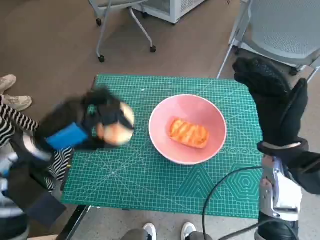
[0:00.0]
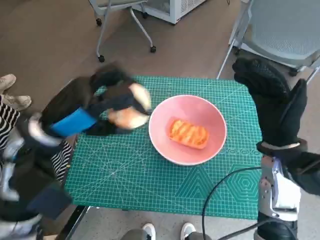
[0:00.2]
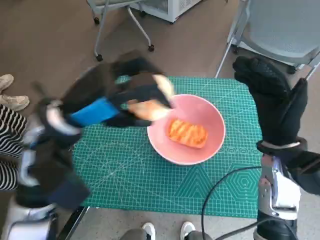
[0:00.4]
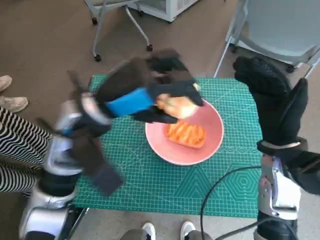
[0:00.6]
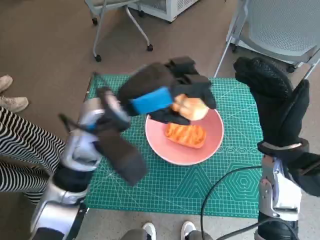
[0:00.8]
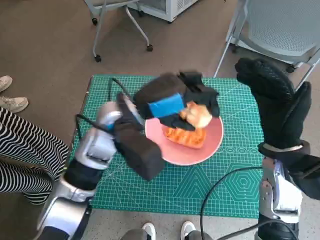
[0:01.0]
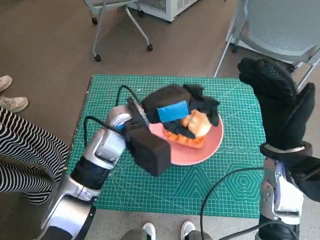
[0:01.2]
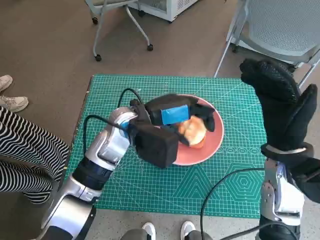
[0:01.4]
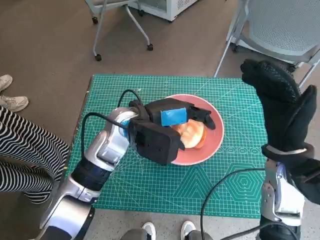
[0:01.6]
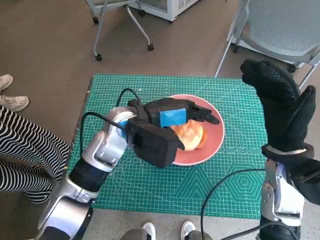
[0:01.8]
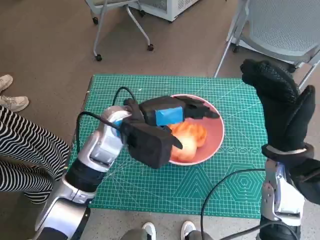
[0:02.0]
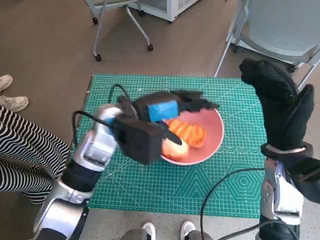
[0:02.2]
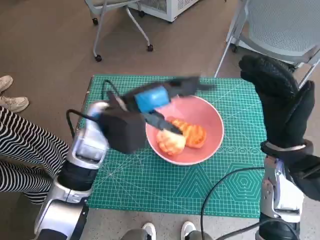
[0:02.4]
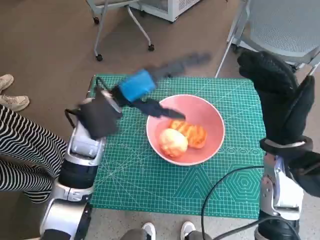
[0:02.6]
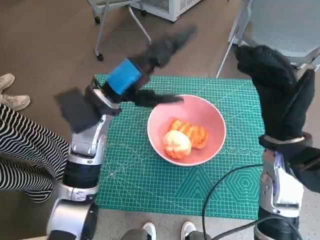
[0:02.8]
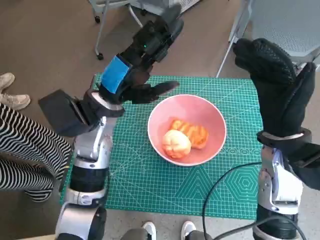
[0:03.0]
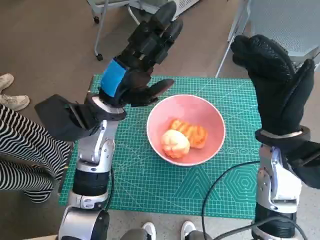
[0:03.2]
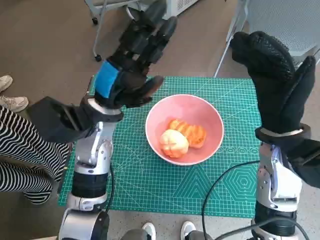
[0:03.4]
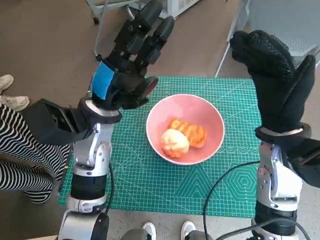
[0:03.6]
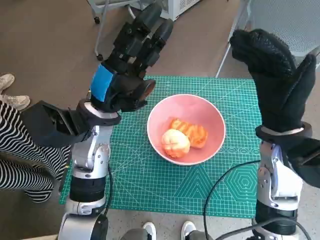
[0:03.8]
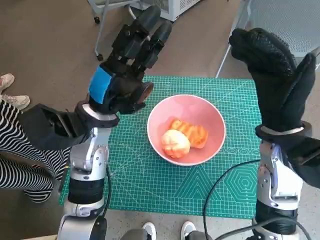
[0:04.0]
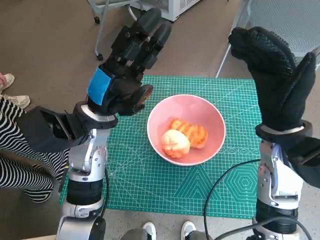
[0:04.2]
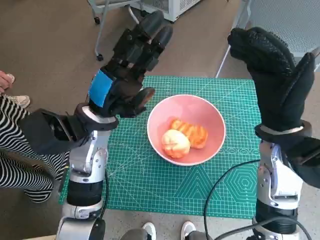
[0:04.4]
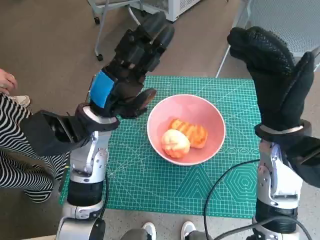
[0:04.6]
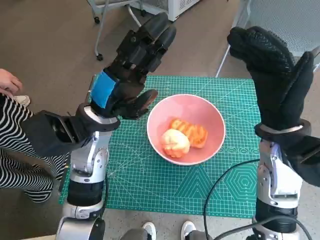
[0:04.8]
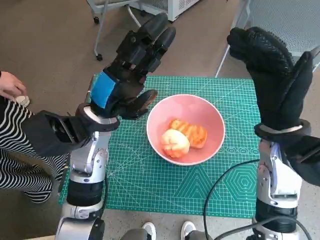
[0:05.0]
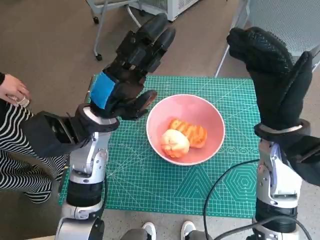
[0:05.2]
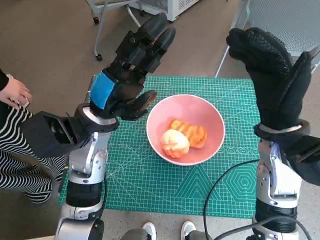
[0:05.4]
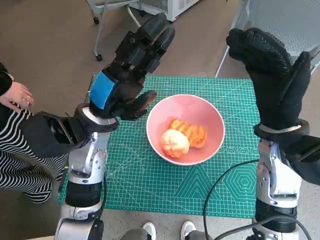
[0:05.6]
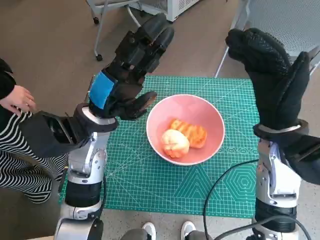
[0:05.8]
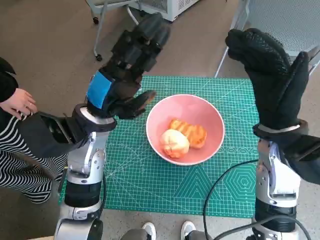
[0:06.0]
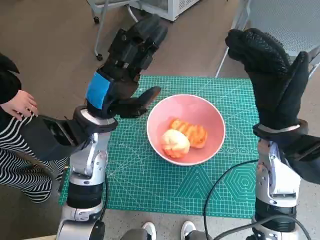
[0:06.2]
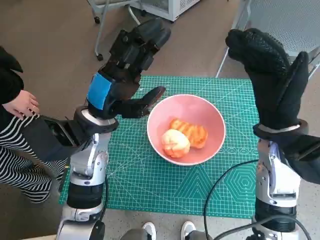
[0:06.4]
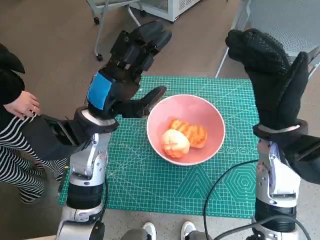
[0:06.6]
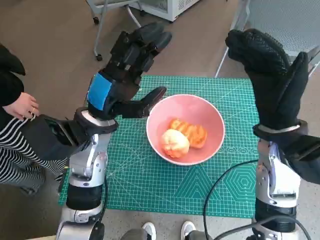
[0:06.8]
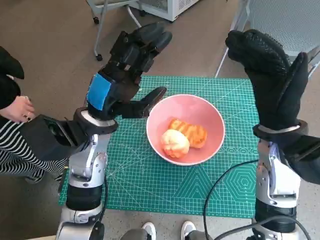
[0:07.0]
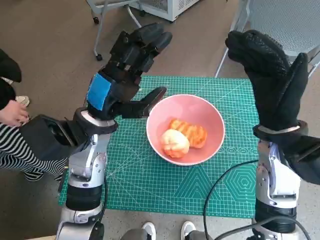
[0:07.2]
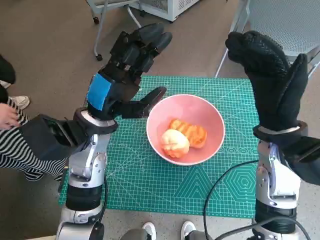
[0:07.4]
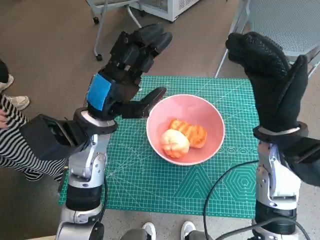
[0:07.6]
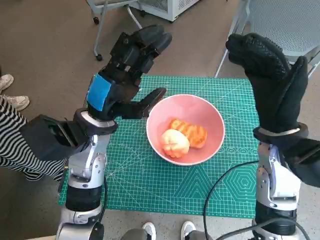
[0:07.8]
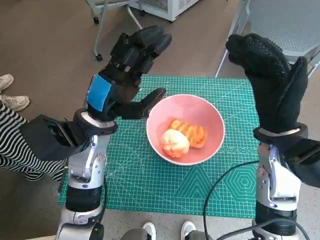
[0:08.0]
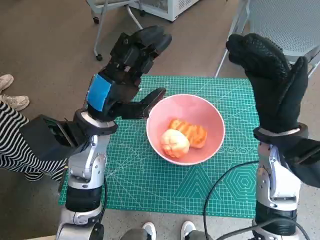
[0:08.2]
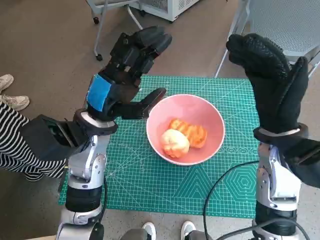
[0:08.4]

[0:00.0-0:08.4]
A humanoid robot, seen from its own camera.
Task of the whole recording: Push the bowl into the center of the table and put the bread into the bowl.
Step, 0:00.0 to 0:02.0: Place the round bread in pink bowl with left hand.
0:00.0 to 0:01.4: The left hand moves to the right and forward, roughly 15 cm.
0:01.4 to 0:02.8: The left hand is displaced to the left by some 5 cm.
0:04.2 to 0:05.6: The two hands keep their place.
0:05.6 to 0:07.0: The hands move only a little.
0:07.0 to 0:08.4: Both hands stay put.

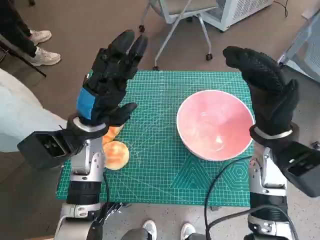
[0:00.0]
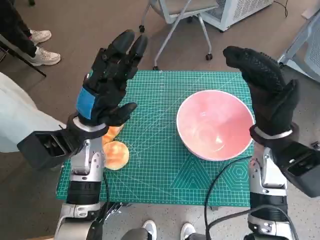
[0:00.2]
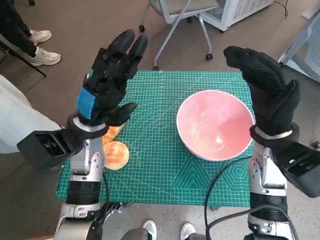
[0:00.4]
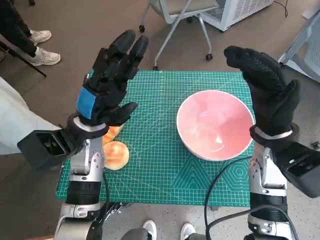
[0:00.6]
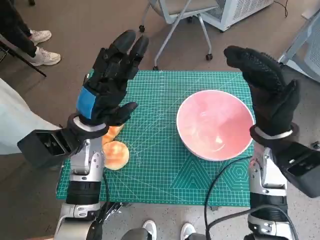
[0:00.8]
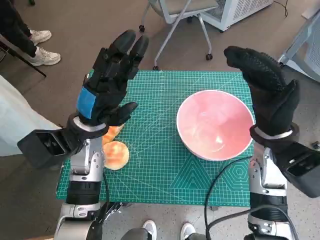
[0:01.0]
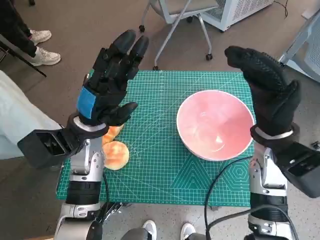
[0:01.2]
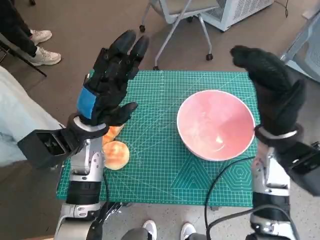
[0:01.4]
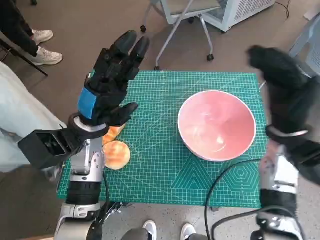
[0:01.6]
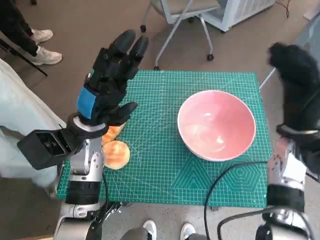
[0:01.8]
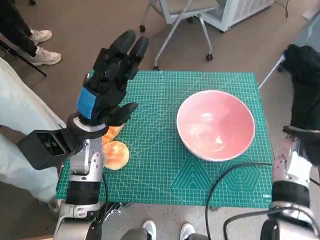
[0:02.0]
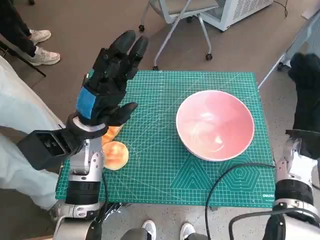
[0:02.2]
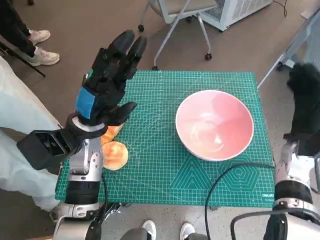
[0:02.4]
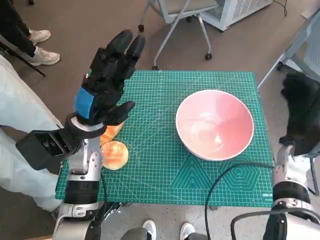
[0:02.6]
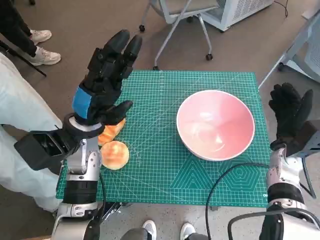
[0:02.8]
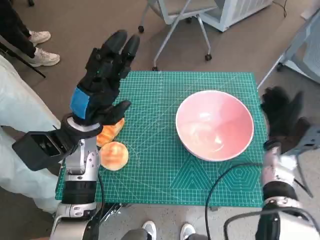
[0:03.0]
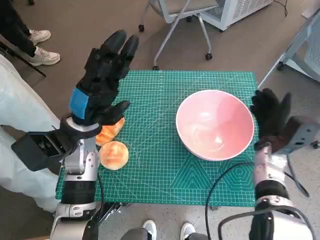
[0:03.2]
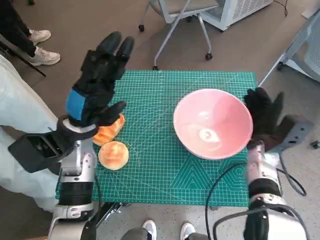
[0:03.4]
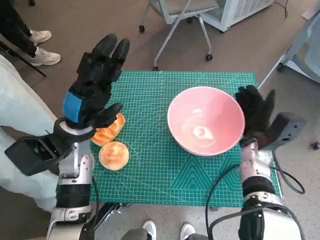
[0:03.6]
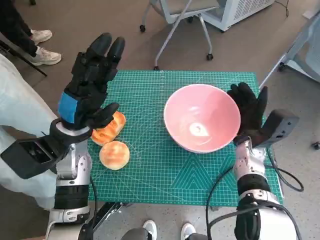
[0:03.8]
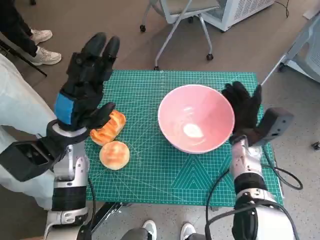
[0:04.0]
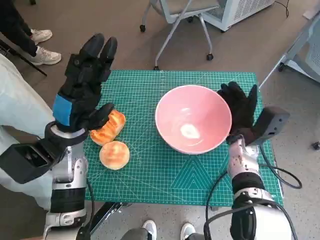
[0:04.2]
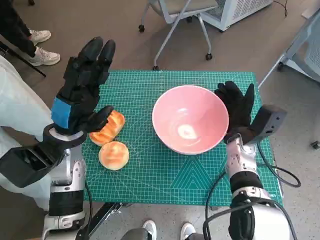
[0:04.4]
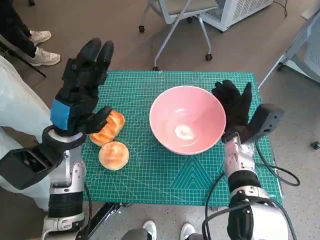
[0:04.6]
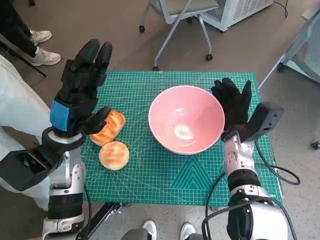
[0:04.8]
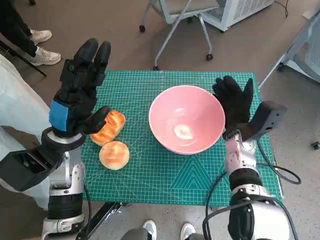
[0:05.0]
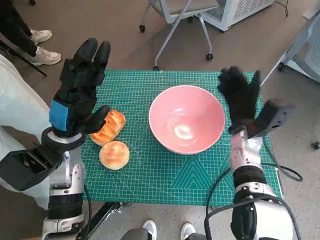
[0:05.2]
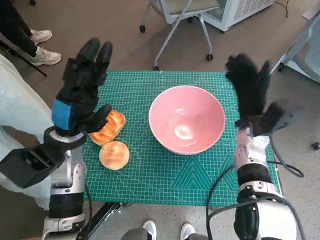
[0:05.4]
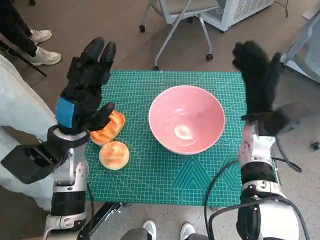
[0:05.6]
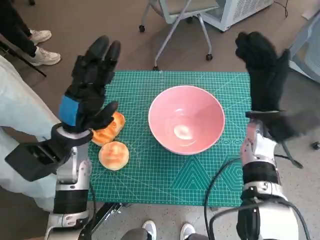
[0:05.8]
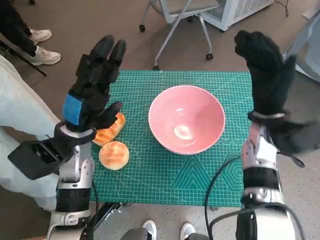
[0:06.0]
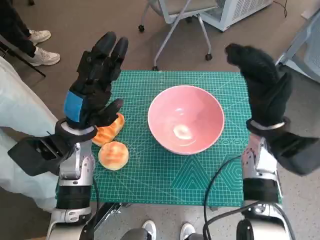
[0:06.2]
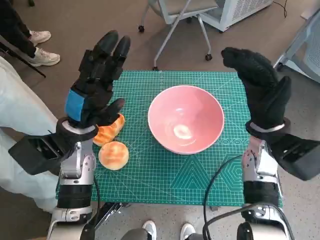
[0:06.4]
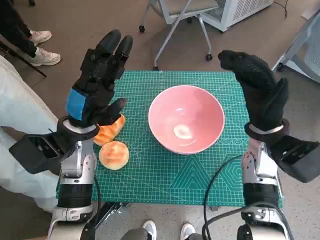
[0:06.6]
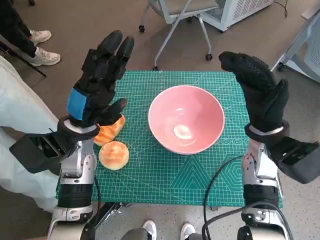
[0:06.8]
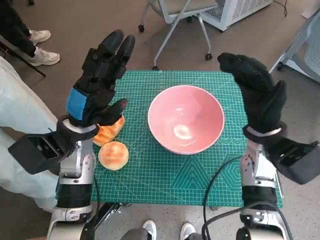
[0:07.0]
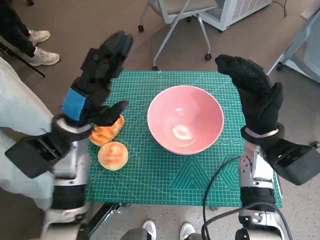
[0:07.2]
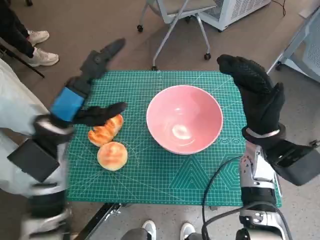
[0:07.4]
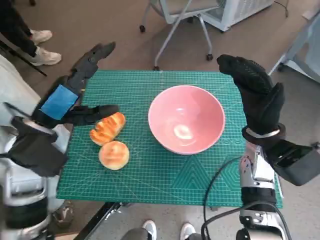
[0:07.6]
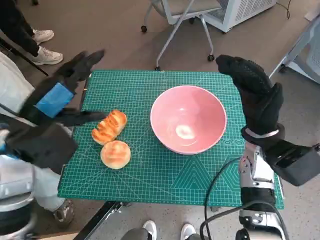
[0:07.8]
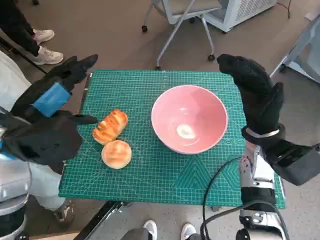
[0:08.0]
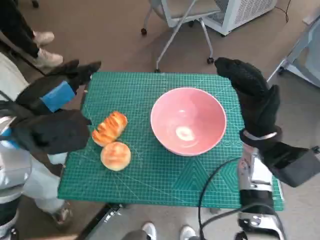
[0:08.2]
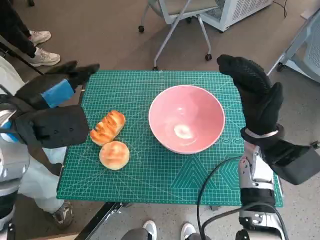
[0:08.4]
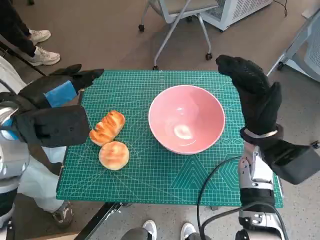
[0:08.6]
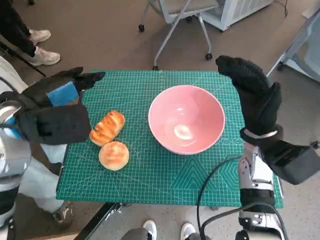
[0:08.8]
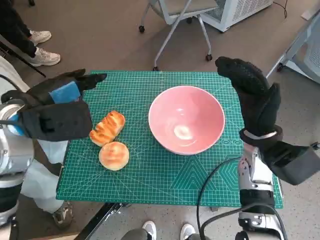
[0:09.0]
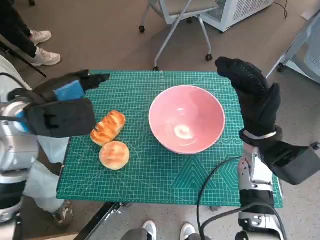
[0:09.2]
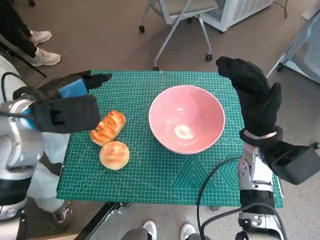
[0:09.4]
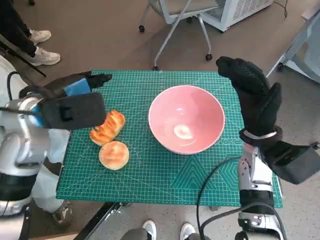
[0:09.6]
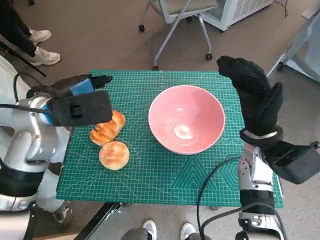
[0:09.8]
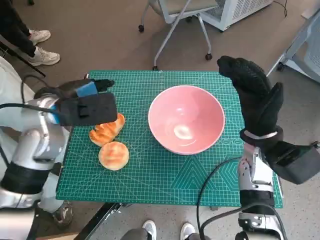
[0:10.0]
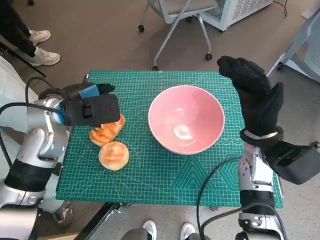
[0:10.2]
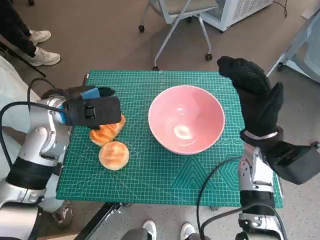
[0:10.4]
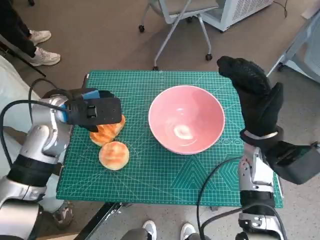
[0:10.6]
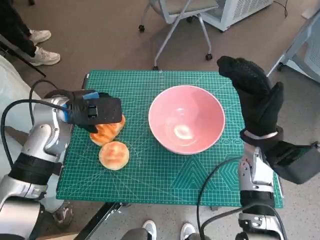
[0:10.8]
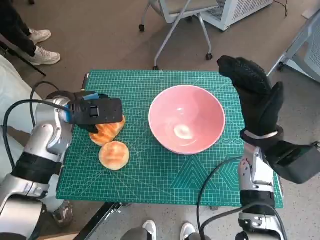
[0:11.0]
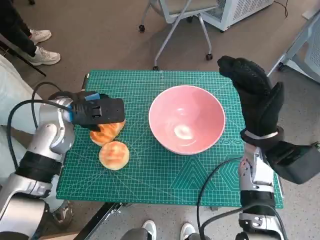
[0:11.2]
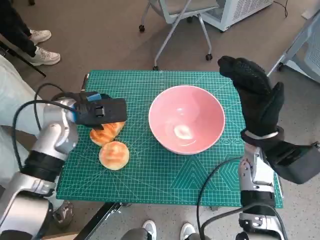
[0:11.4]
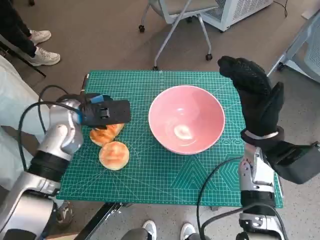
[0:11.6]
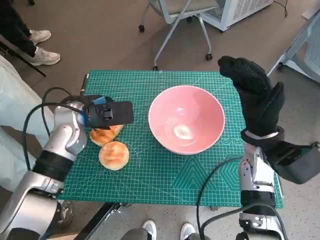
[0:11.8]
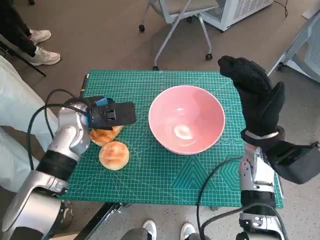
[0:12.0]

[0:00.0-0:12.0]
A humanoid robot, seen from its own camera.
Task of the whole recording: Push the bowl into the center of the table and put the bread into the bowl.
Step, 0:00.0 to 0:05.6: Move the pink bowl to the center of table with right hand.
0:01.6 to 0:03.0: The right hand travels downward by roughly 10 cm.
0:03.0 to 0:04.4: The right hand heads to the left, covering about 10 cm.
0:04.4 to 0:06.0: The right hand goes some 10 cm upward.
0:06.0 to 0:07.6: The left hand moves upward, roughly 5 cm.
0:09.0 to 0:10.4: The left hand shifts by approximately 5 cm.
0:10.4 to 0:12.0: The left hand changes place by about 5 cm.

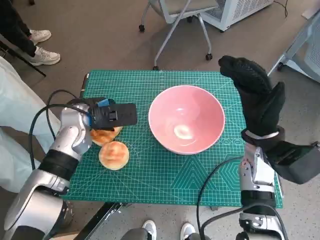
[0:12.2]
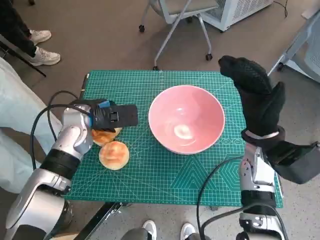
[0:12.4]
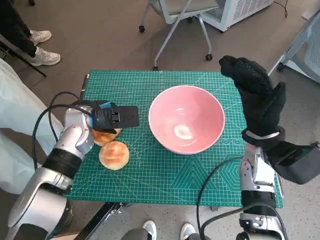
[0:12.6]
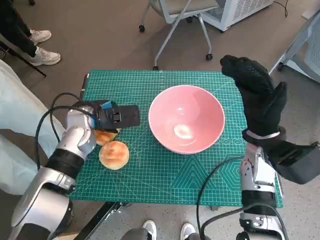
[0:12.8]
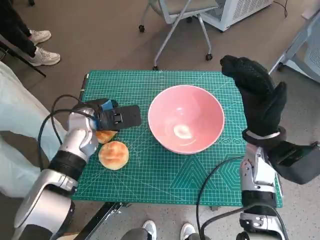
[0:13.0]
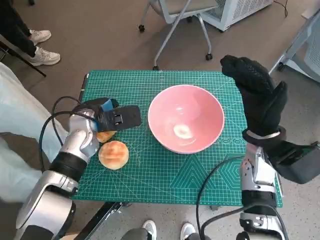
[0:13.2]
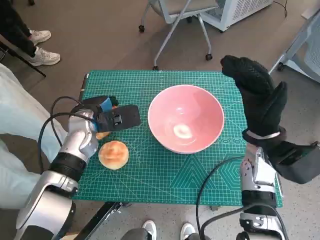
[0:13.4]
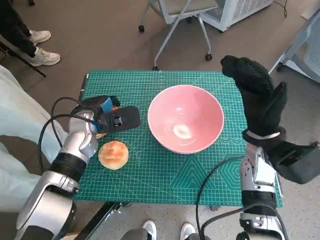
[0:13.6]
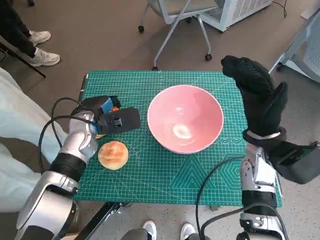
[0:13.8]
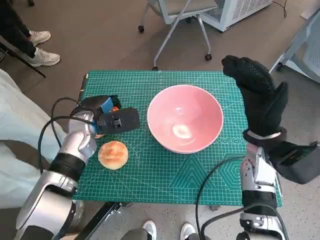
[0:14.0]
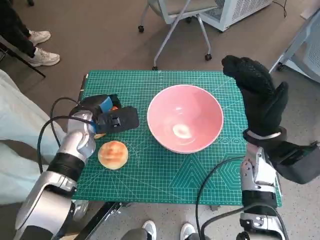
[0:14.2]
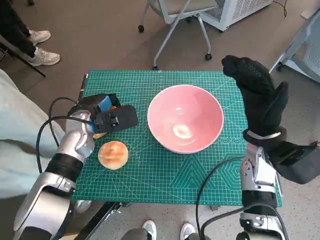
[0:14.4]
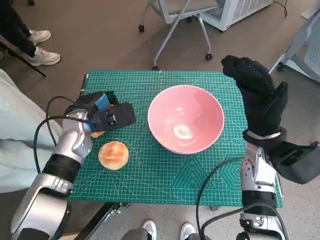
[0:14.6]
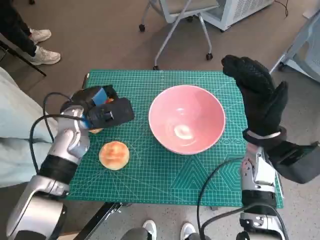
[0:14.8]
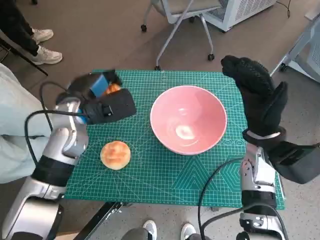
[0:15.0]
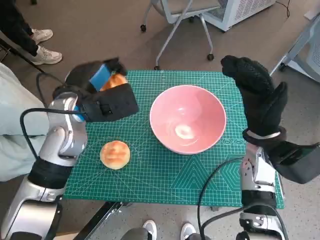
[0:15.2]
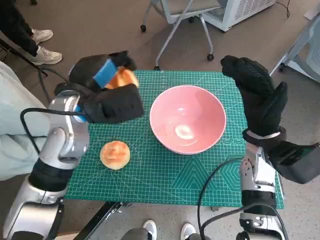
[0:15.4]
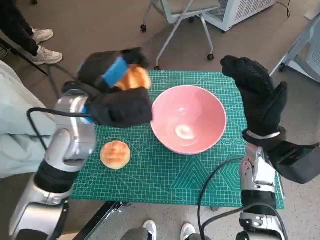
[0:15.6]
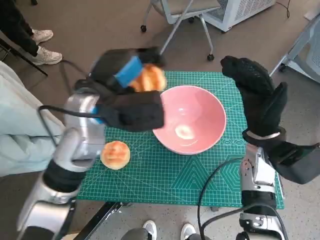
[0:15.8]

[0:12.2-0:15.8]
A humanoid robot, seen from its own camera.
Task of the whole recording: Push the bowl into the center of the table and put the bread into the bowl.
0:12.2 to 0:14.0: The hands make only small movements.
0:14.0 to 0:15.8: The left hand is displaced upward and to the right by approximately 15 cm.
